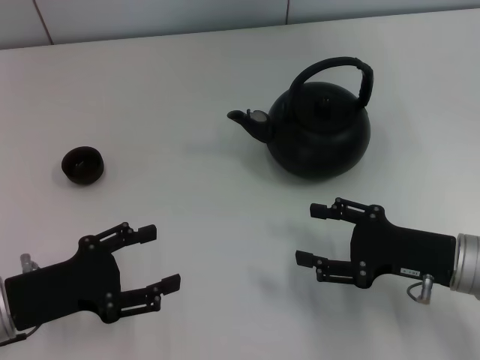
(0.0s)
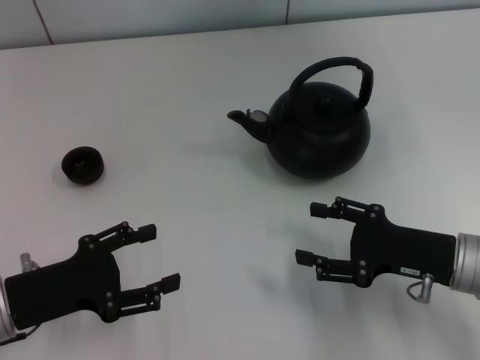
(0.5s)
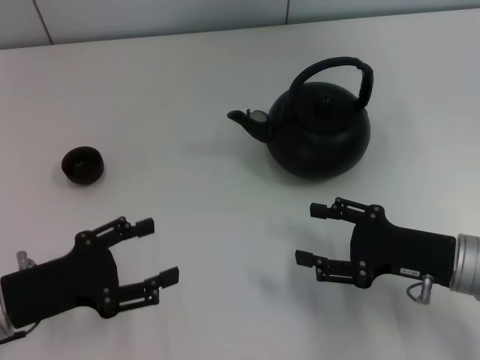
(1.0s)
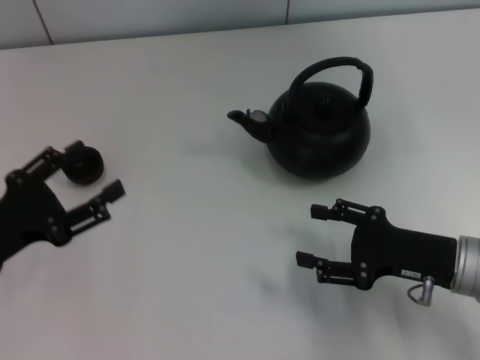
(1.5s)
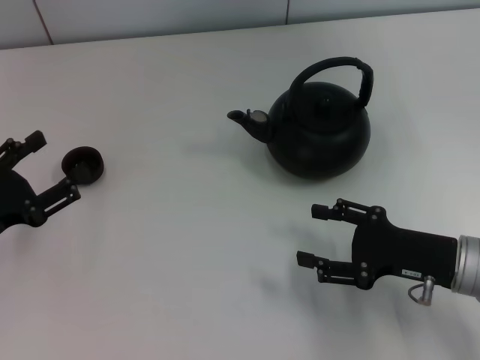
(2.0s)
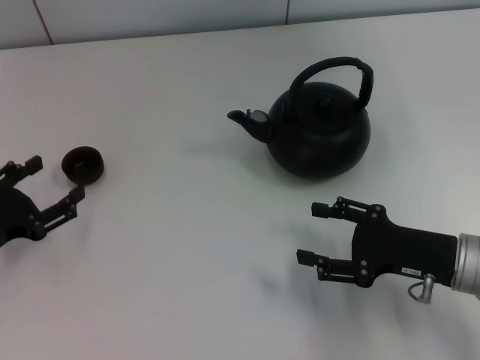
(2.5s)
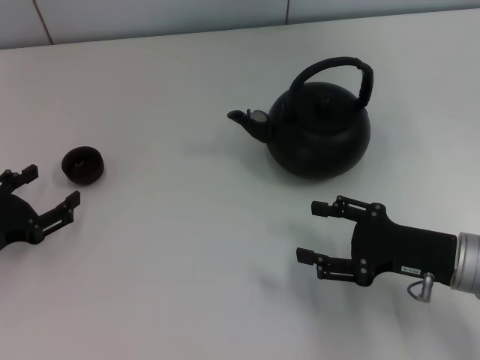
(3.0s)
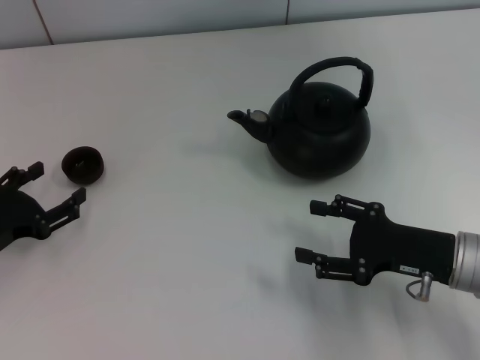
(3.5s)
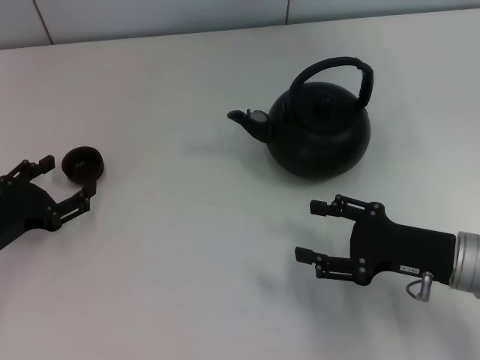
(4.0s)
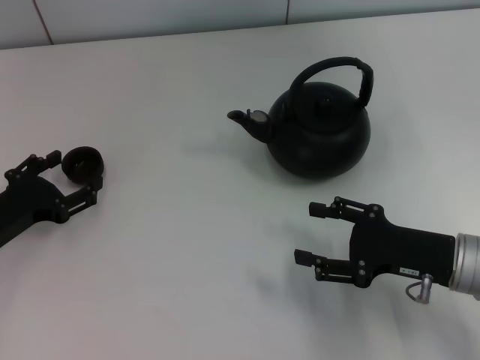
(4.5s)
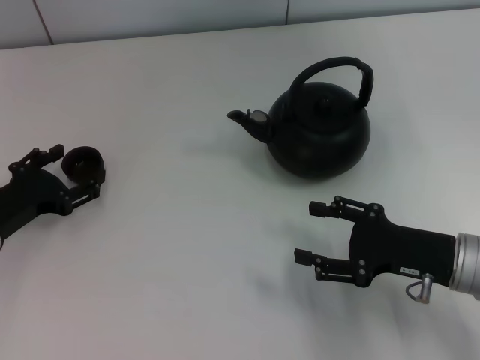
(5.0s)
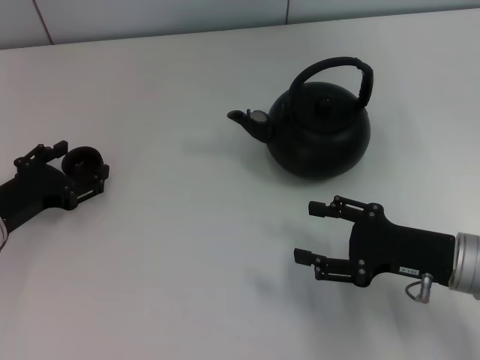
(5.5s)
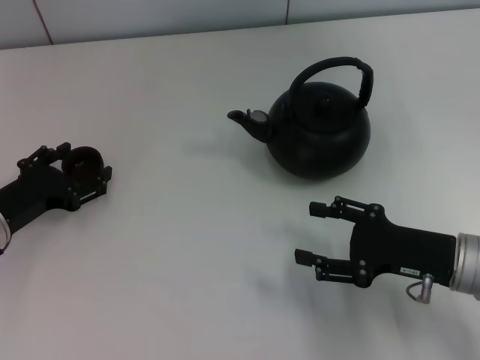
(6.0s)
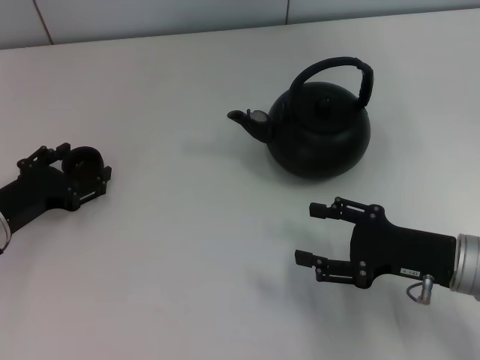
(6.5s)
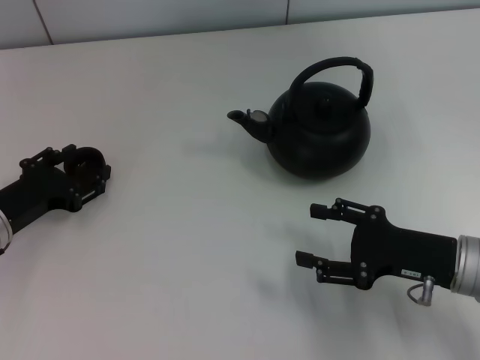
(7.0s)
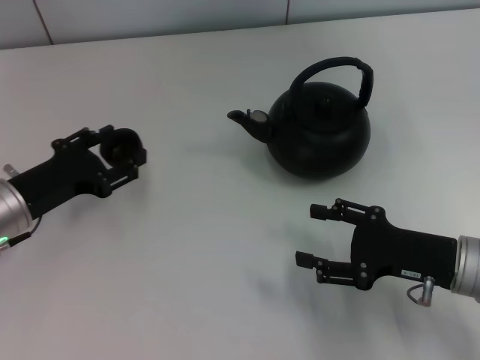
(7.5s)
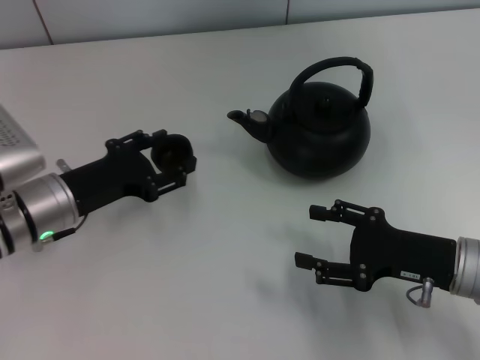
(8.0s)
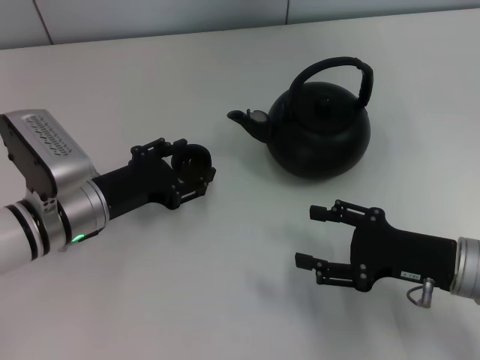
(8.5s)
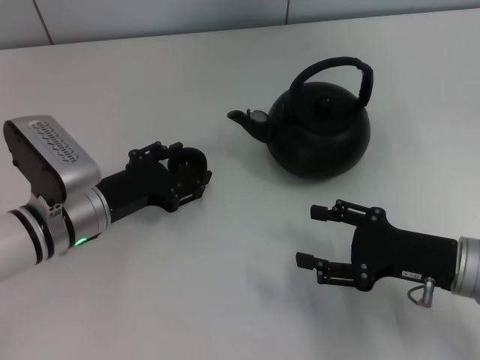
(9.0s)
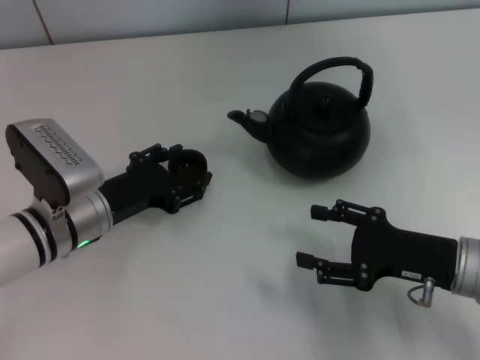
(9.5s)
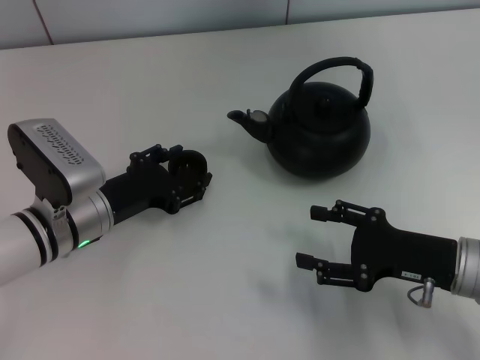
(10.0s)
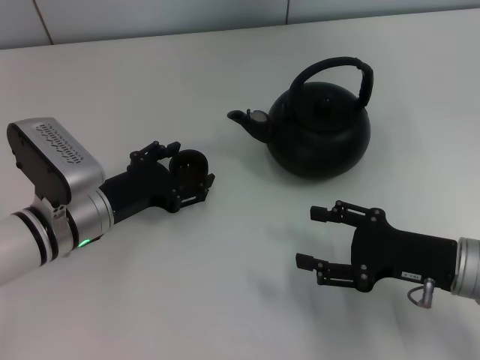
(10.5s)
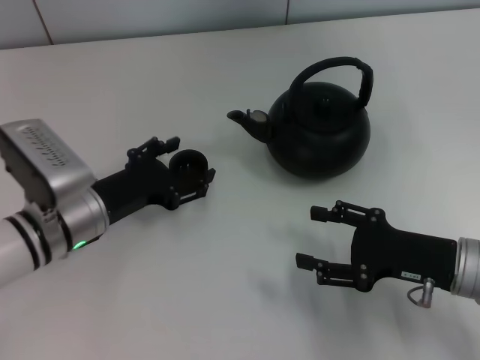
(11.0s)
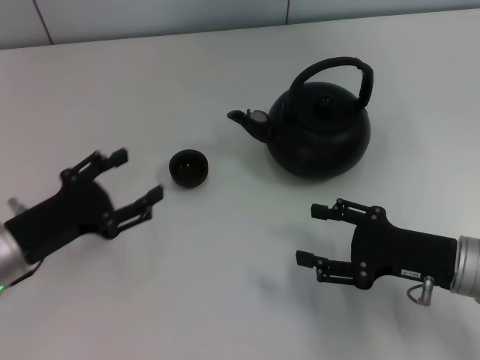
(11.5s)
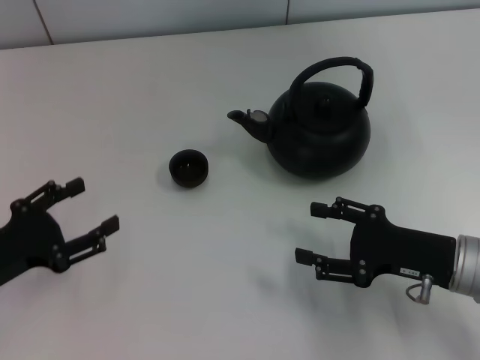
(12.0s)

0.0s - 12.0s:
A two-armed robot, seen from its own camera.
Task of the whole recording: Grasp the handle of the teapot with one hand and pour tea into the teacup.
Step, 0.0s - 7.5s: Pick up the teacup with the left gripper.
Step, 8.0s - 11.0s: Place the teacup in the center of view with the left gripper.
2.0s - 4.0s: There are only small adjustments of the grippers.
4.0s - 6.0s: The grippers stay close to where they were, moving slightly.
6.0s - 8.0s: The left gripper goes some 5 cm to the right, and closes.
8.0s - 10.0s: The left gripper opens up.
10.0s - 12.0s: The left gripper goes roughly 15 cm to the left and backward.

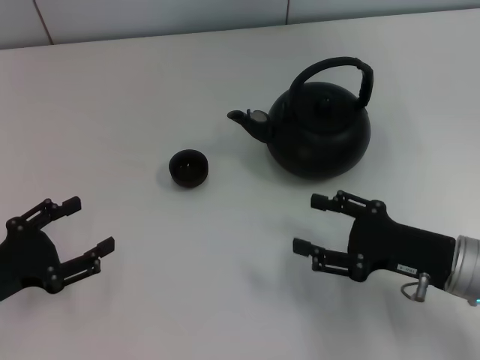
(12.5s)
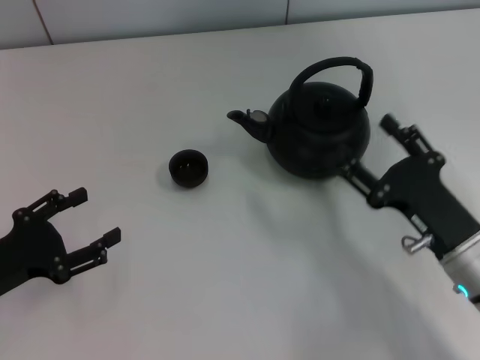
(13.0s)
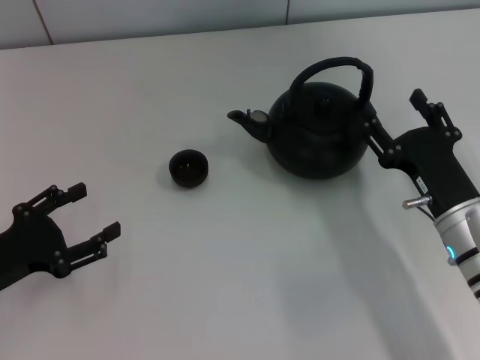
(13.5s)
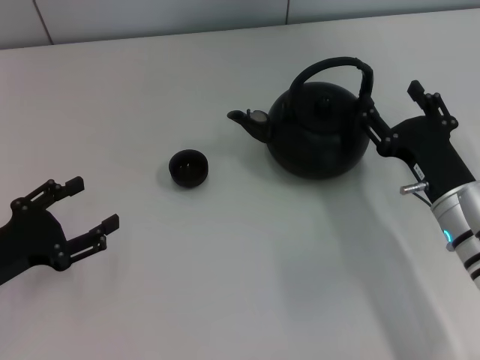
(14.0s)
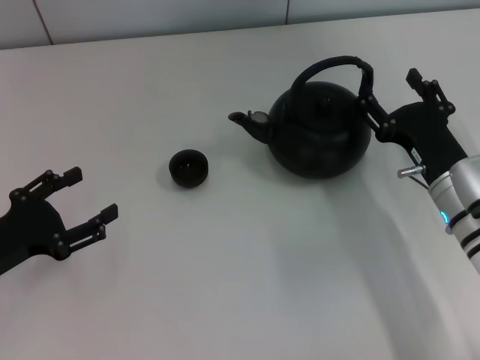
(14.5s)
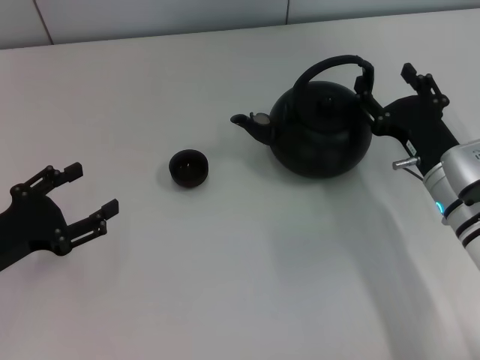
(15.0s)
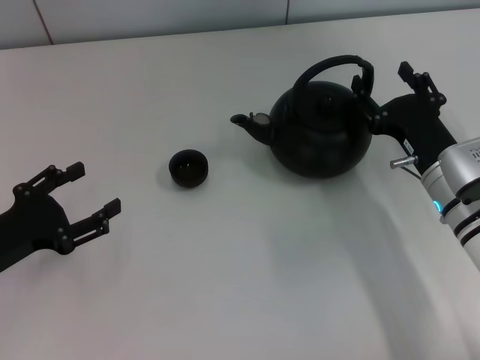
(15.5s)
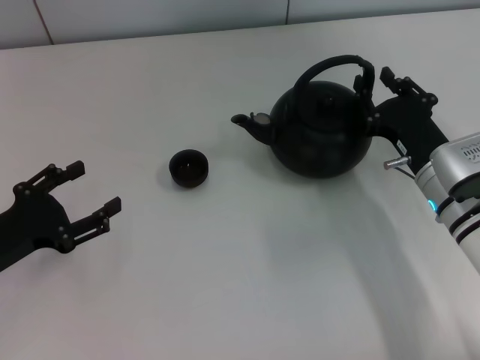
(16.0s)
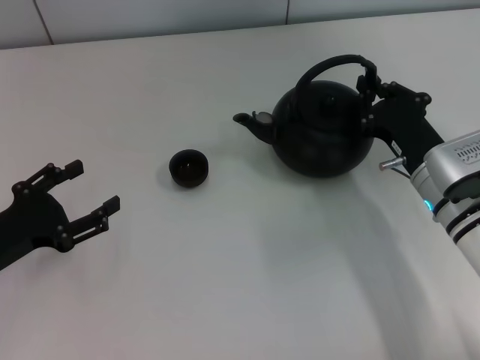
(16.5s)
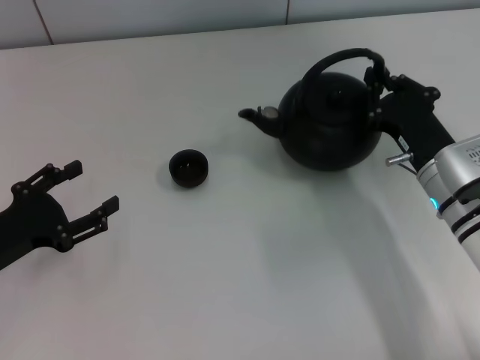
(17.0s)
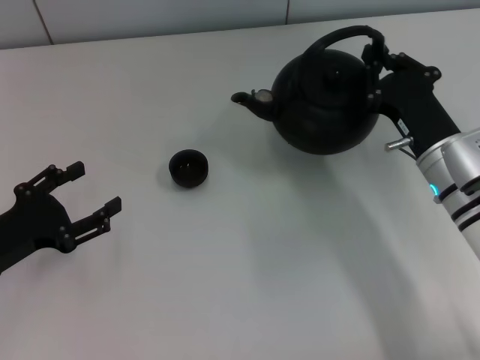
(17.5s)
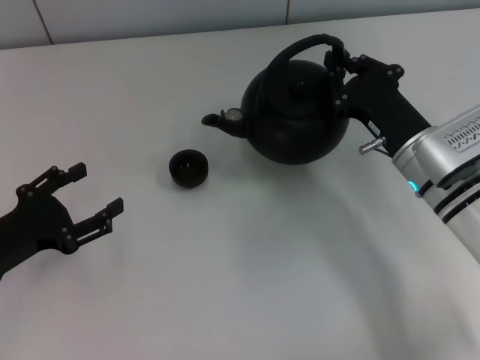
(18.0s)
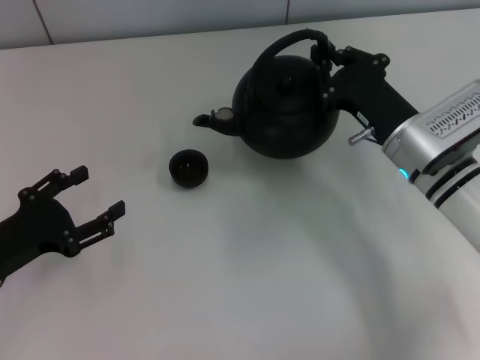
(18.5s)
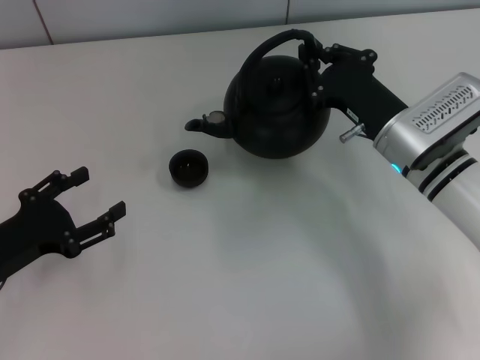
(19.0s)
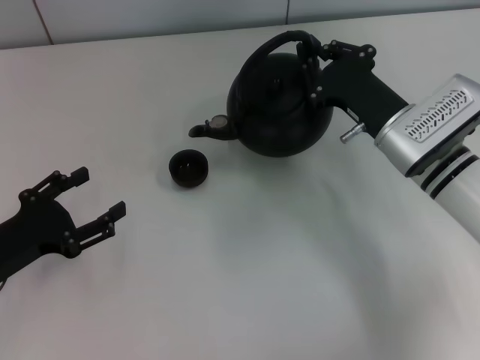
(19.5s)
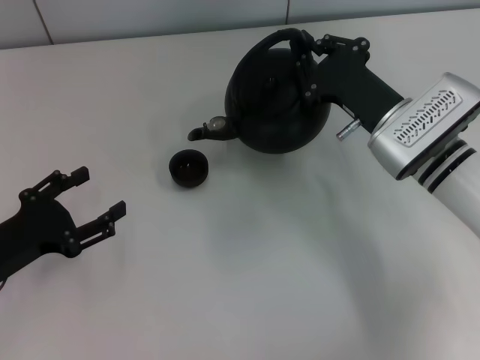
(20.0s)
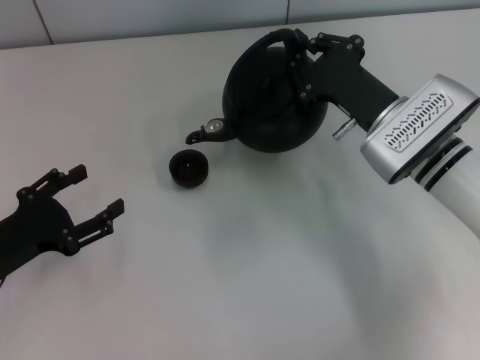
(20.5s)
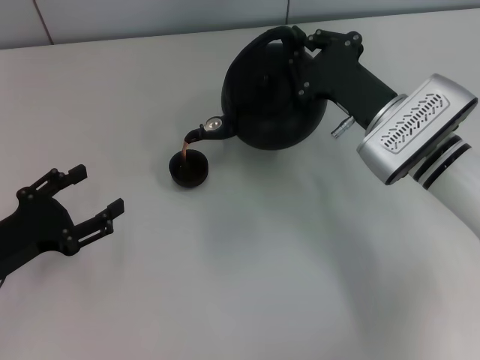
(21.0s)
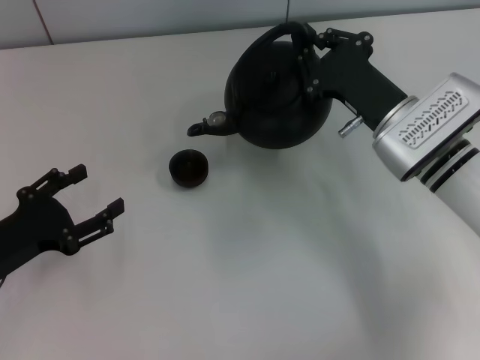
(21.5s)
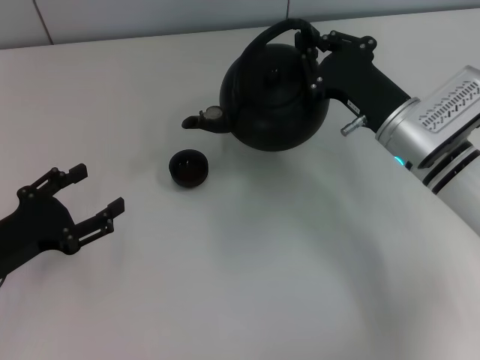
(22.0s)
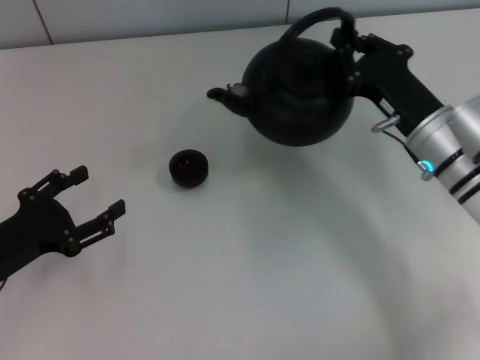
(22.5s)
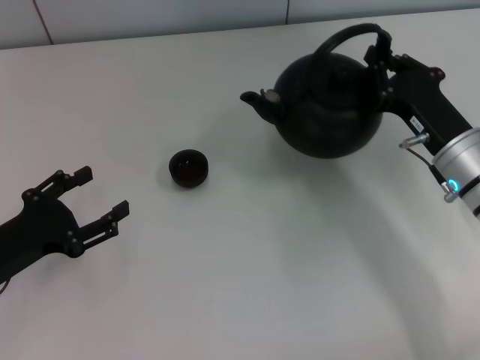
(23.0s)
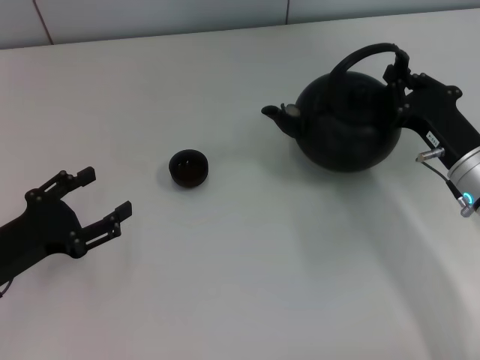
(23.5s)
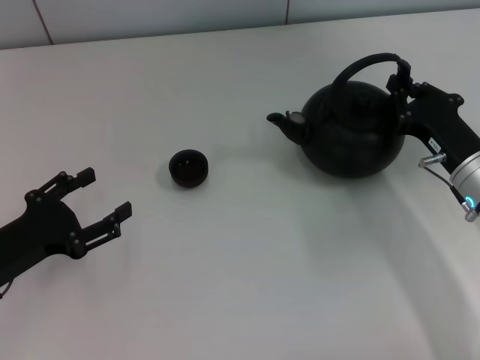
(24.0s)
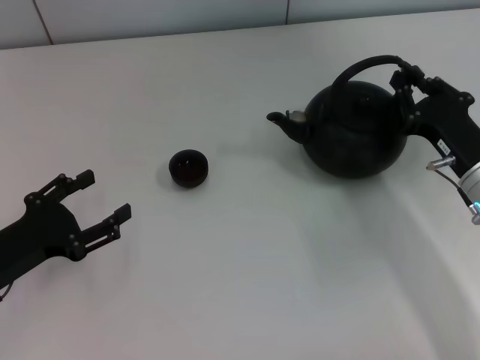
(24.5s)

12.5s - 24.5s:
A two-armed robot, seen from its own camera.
Task of the whole recording: Grasp the handle of the teapot with one hand and pour tea into the teacup.
Step, 12.5s - 17.5s: Pick up the teapot with the right gripper.
12.5s - 14.5s: The right gripper travels forward by some 5 cm.
14.5s - 16.5s: The right gripper closes up.
16.5s - 18.5s: The grippers move only a little.
18.5s - 20.5s: The grippers stay close to where they were, moving slightly.
22.5s - 24.5s: The right gripper shifts by some 5 cm.

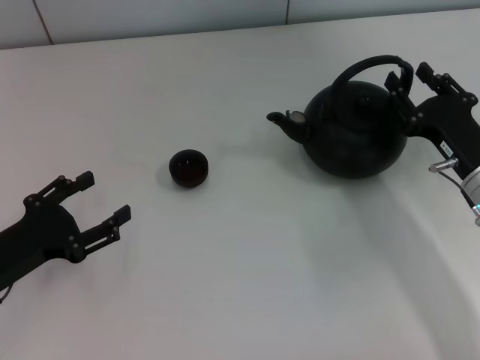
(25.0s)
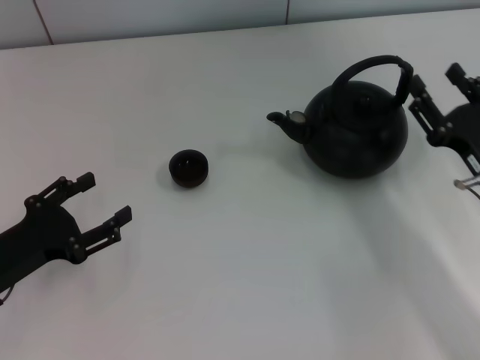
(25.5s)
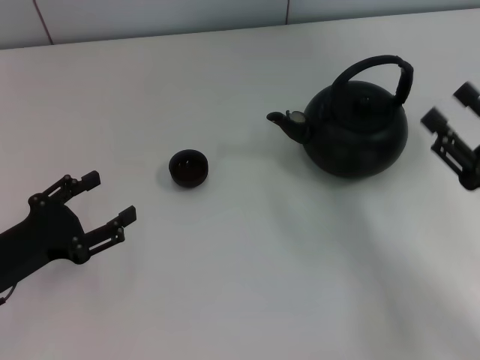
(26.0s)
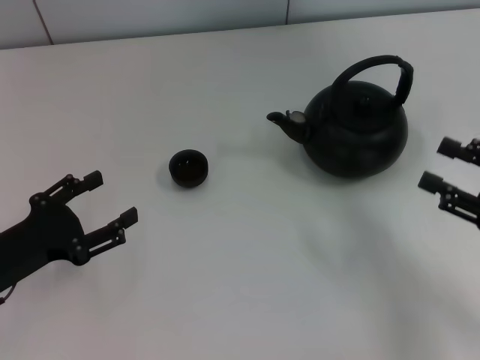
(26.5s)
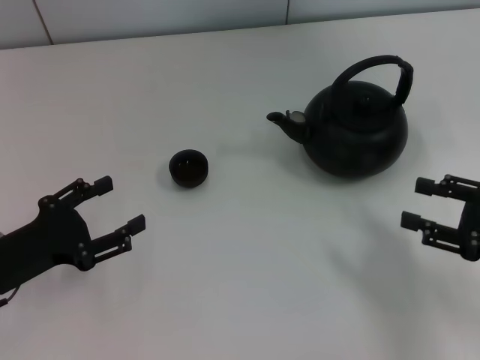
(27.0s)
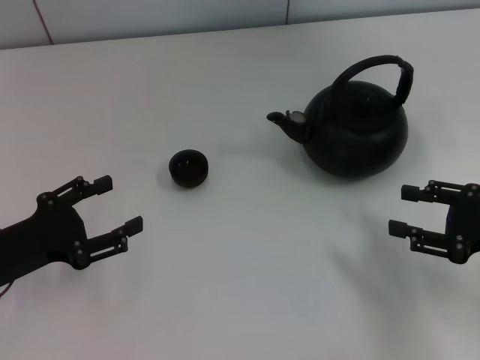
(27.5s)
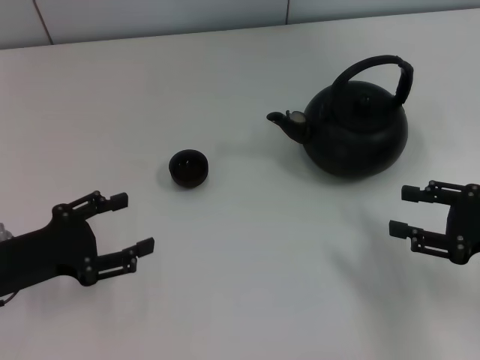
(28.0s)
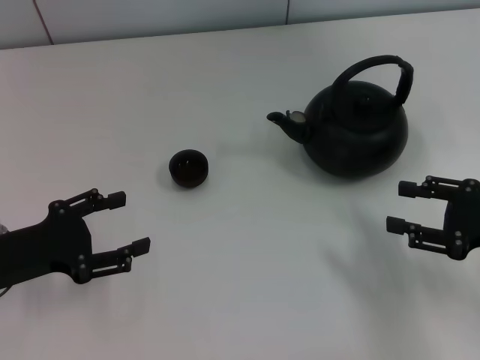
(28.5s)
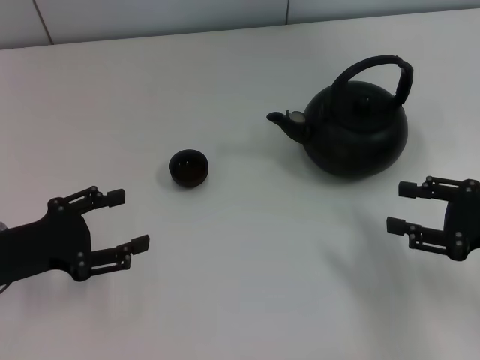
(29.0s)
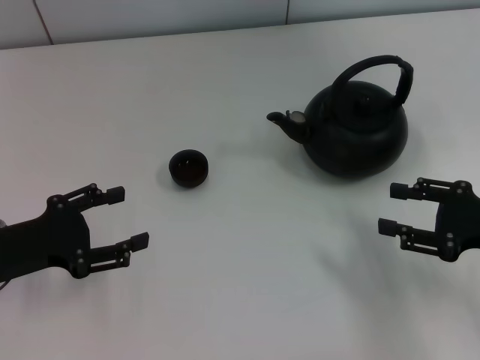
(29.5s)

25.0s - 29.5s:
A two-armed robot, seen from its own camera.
Task of the whole recording: Grasp the handle of the teapot with one hand and pour tea into the teacup.
25.0s - 27.0s: The right gripper shifts approximately 10 cm to the right and backward.
27.0s - 29.5s: There are only small adjustments of the grippers.
